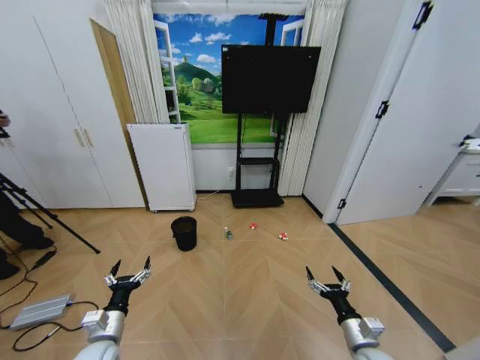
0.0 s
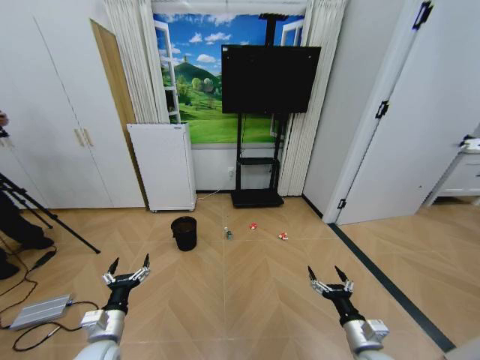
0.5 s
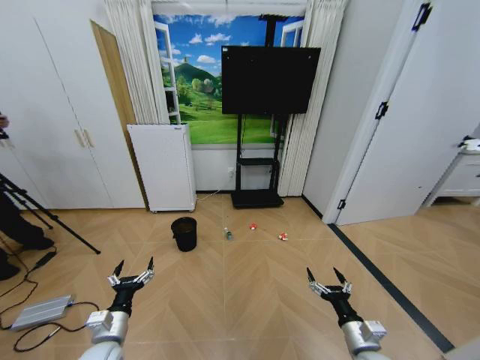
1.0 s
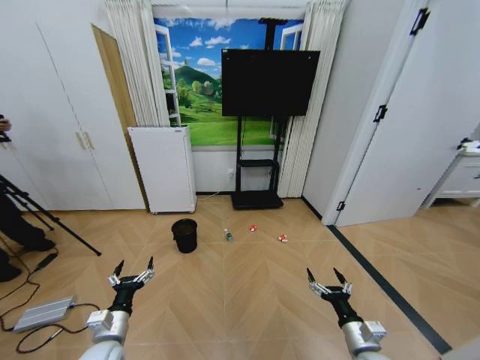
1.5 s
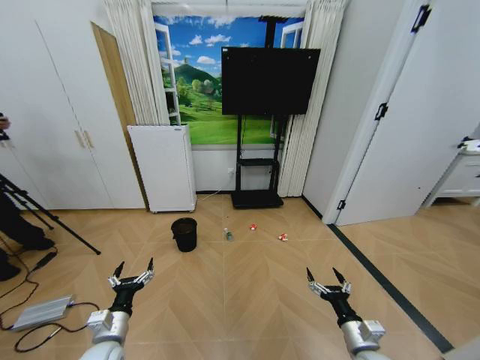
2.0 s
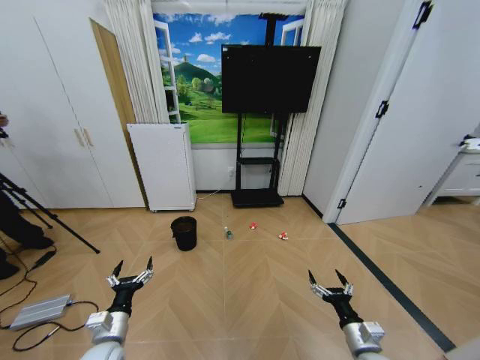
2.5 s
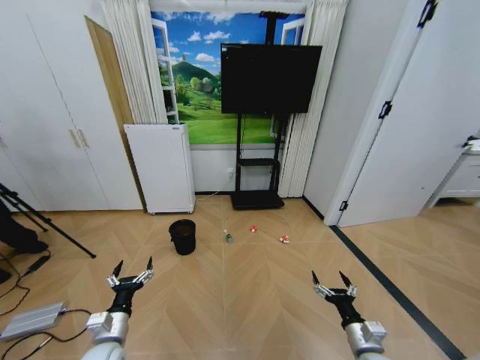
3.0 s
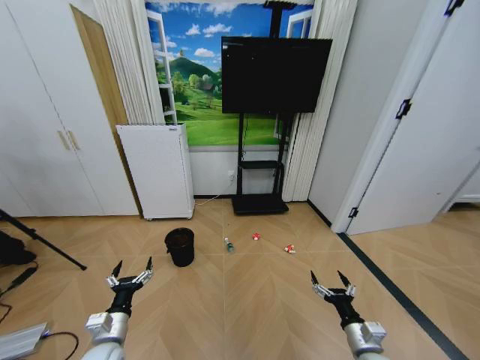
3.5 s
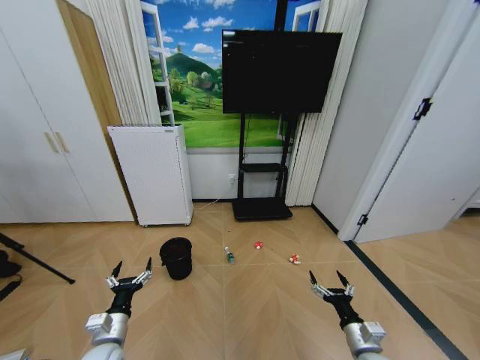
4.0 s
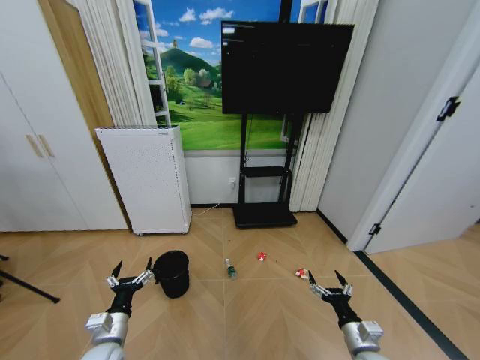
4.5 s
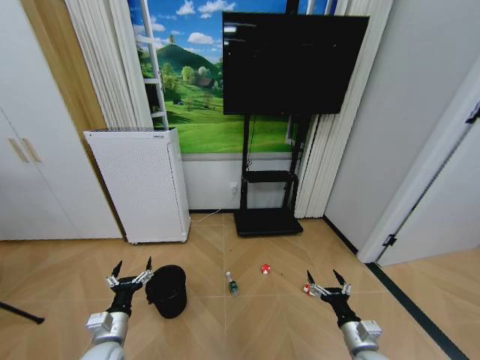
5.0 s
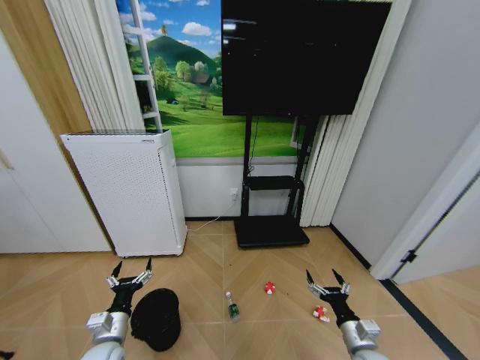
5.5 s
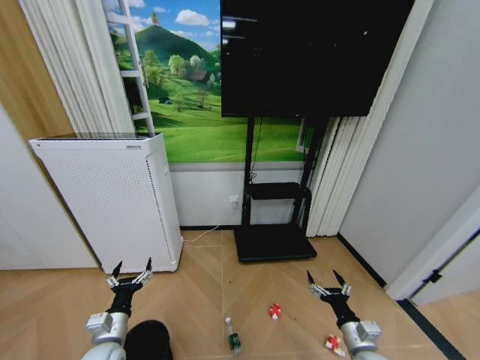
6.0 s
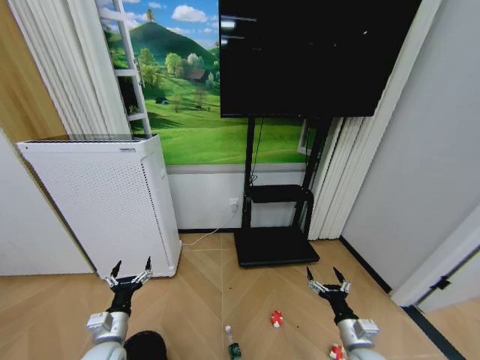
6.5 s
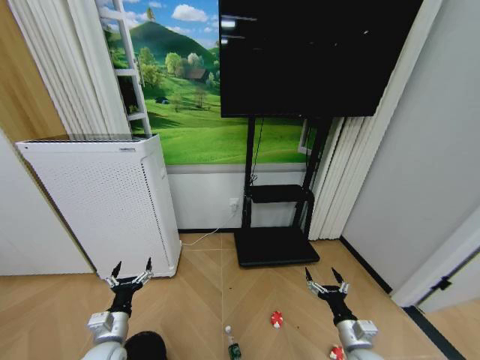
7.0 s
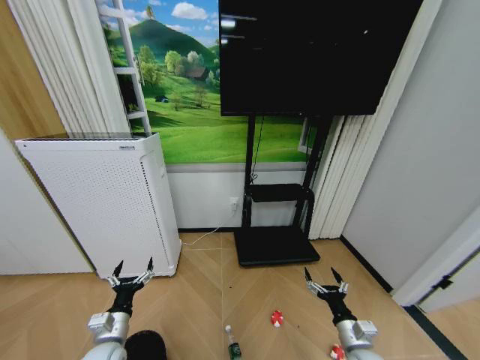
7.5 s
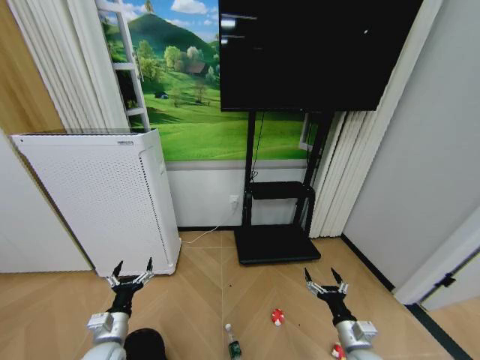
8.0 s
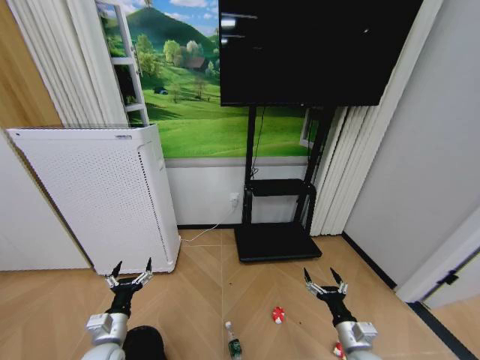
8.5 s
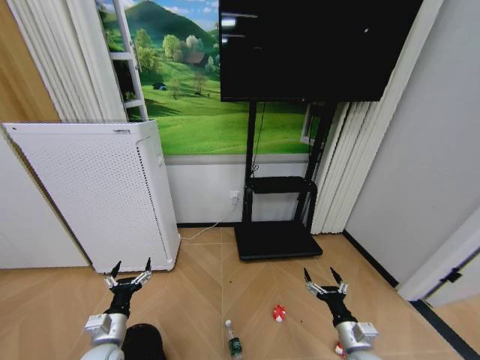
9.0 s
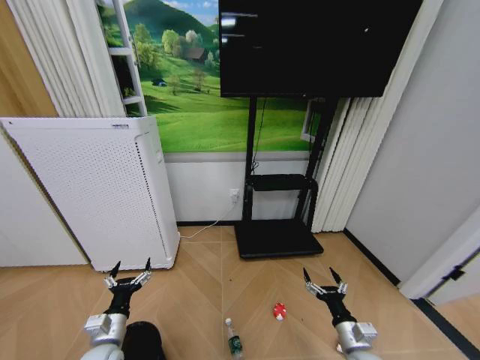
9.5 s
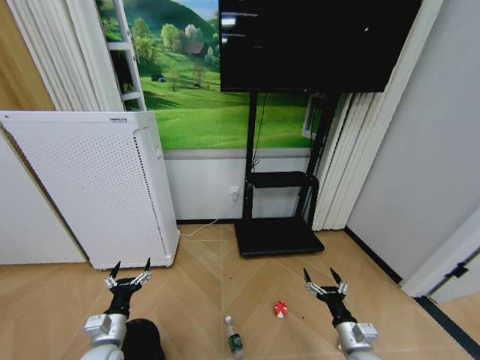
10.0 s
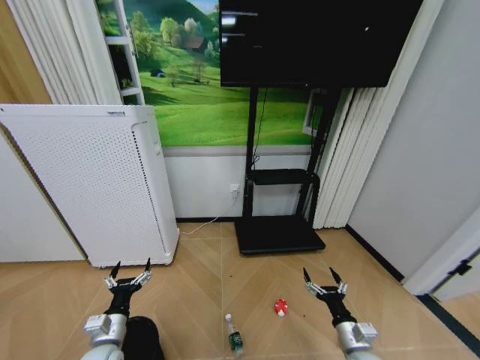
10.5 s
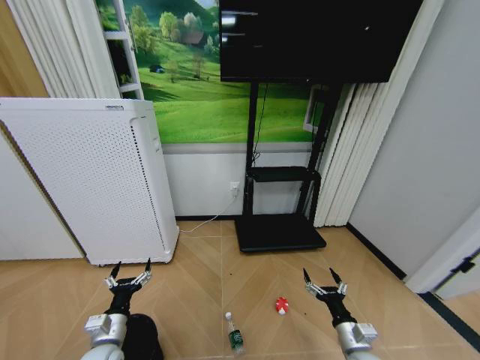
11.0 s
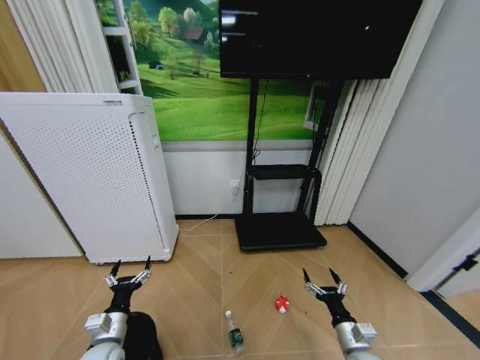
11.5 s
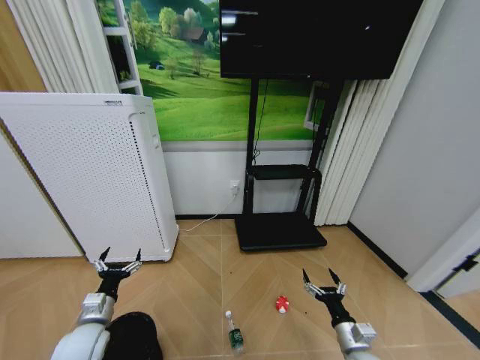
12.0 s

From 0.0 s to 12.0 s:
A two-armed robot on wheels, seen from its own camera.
Task of the whole recording: Pick up the trash bin and place the garbage on the floor into it.
From 6.0 s to 10.0 s: The two grippers keep their place.
From 10.0 s to 12.0 s: The left gripper changes place by about 5 cm.

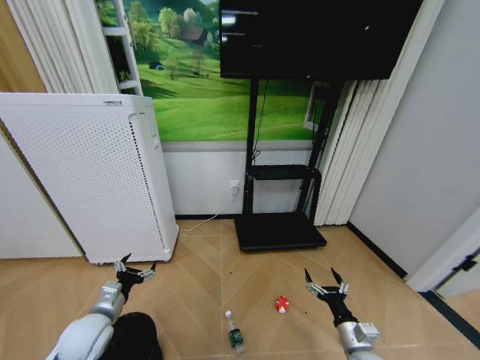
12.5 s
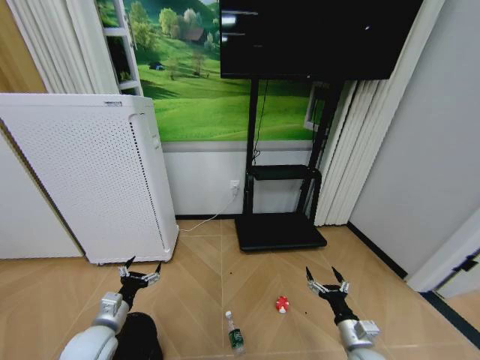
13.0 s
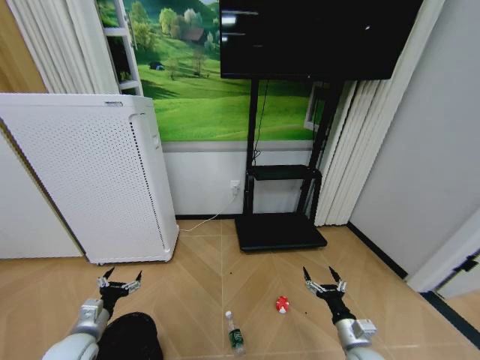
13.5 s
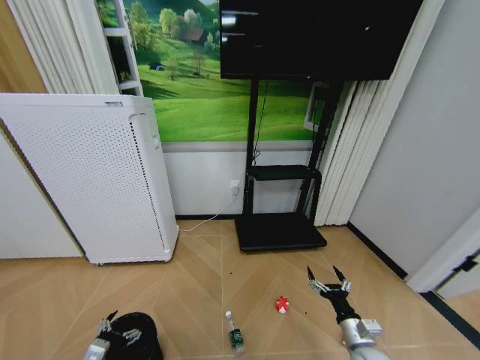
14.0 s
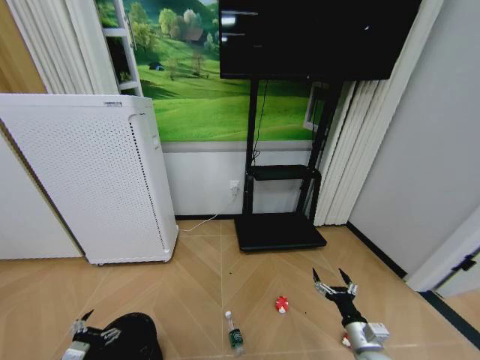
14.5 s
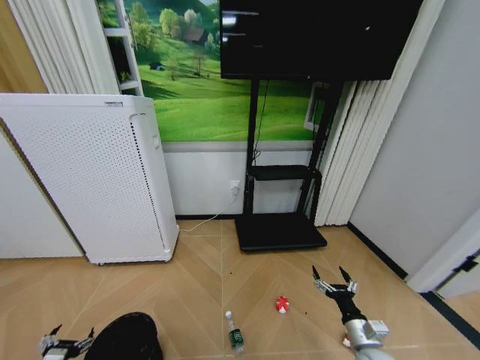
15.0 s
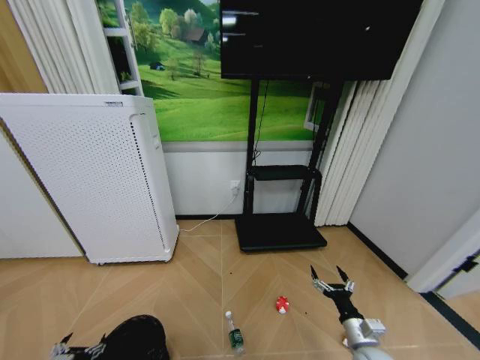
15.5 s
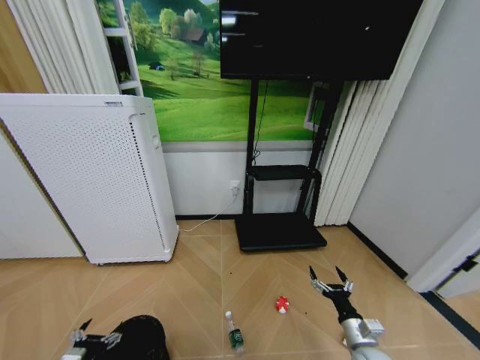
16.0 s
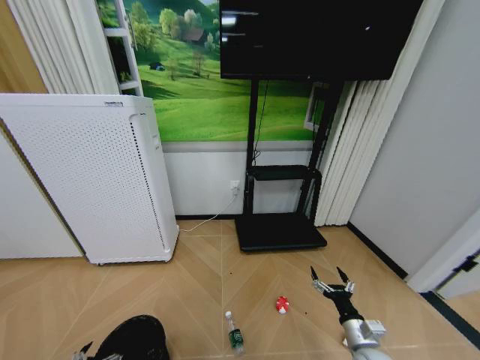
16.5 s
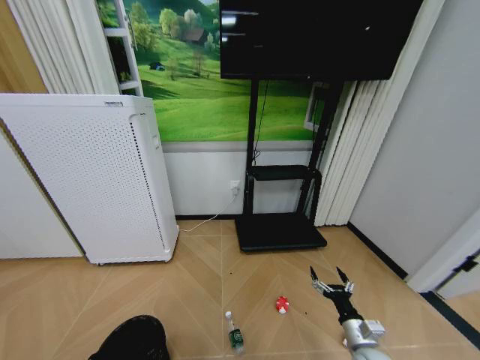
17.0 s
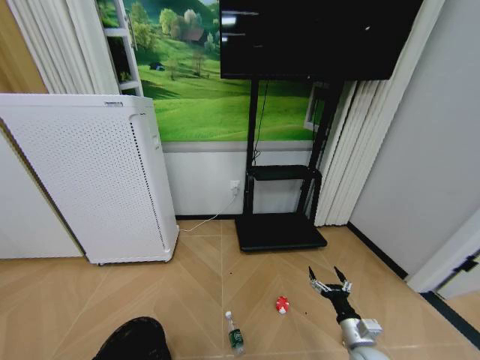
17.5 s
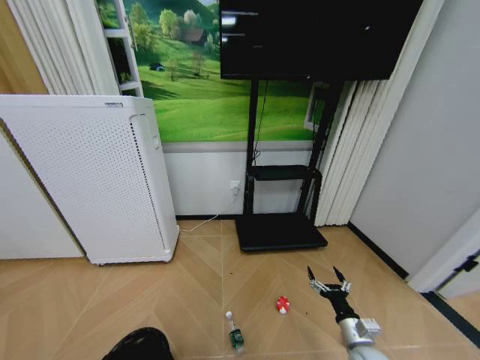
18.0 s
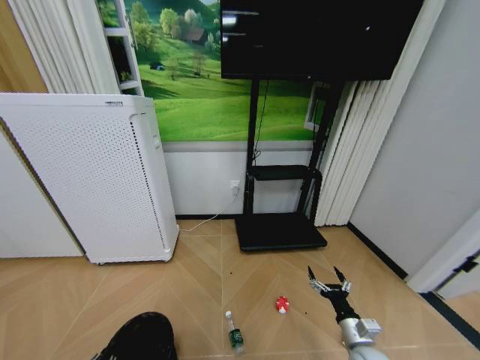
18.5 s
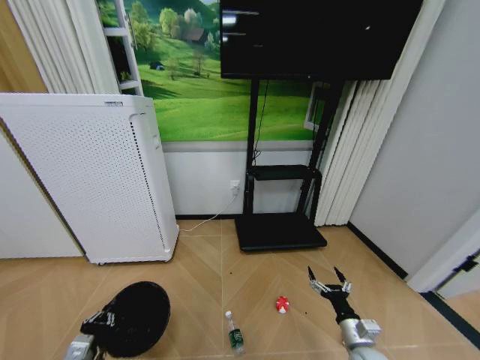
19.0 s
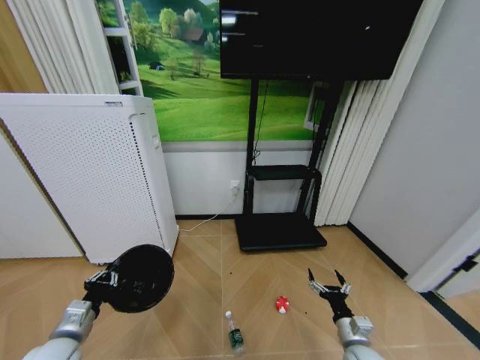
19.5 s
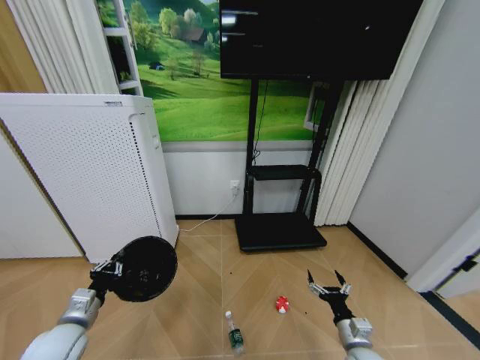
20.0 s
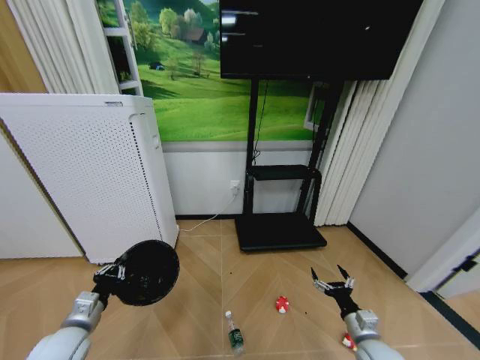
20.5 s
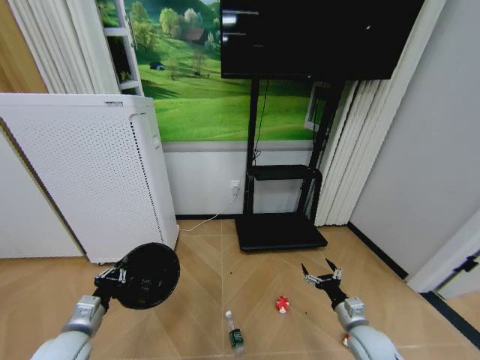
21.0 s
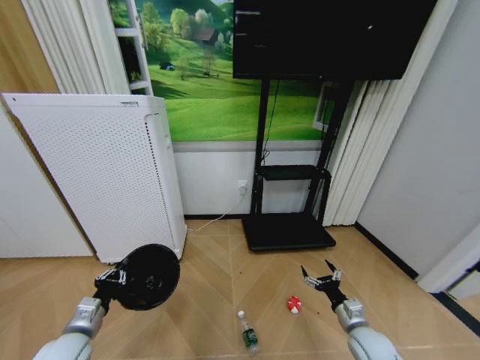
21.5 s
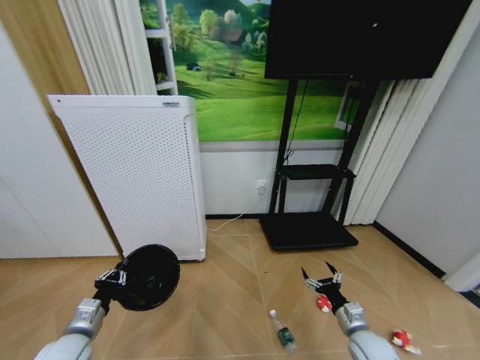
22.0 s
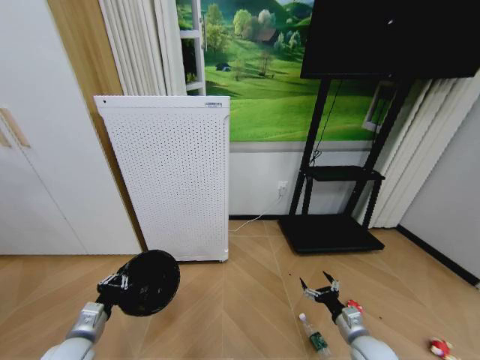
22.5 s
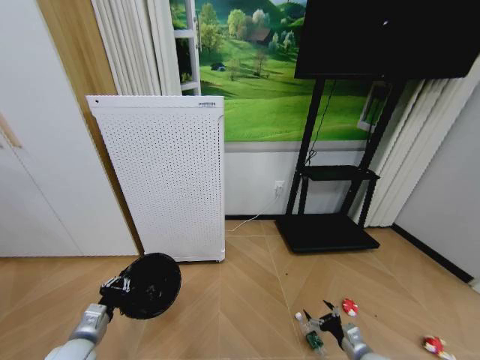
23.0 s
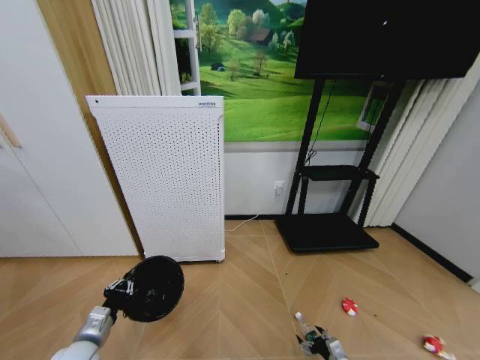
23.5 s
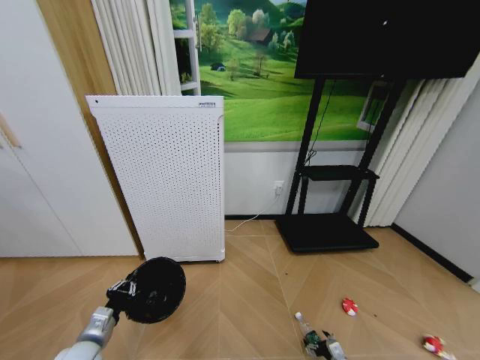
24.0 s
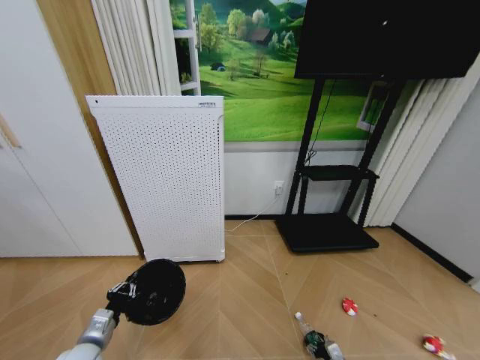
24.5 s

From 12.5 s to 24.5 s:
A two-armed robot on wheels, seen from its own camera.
Task of the whole recording: Pick up the trash bin and place the garbage on the floor into it.
From 12.5 s to 14.5 s: The left gripper goes about 10 cm backward.
From 14.5 s to 16.5 s: The left gripper shifts by roughly 5 cm.
From 16.5 s to 18.5 s: The left gripper closes its fingers.
From 18.5 s to 20.5 s: The left gripper is displaced upward and forward by roughly 15 cm.
From 22.5 s to 24.5 s: The right gripper shifts roughly 20 cm downward.

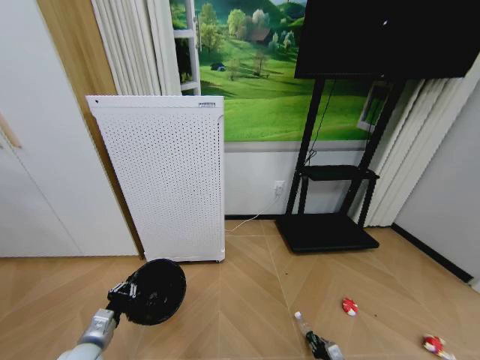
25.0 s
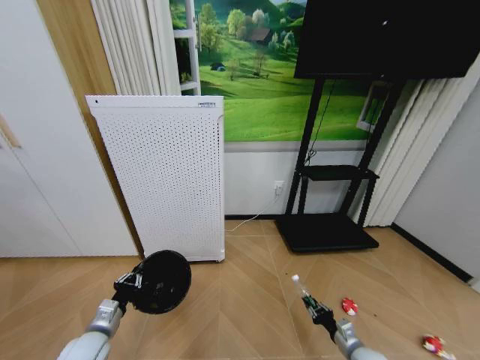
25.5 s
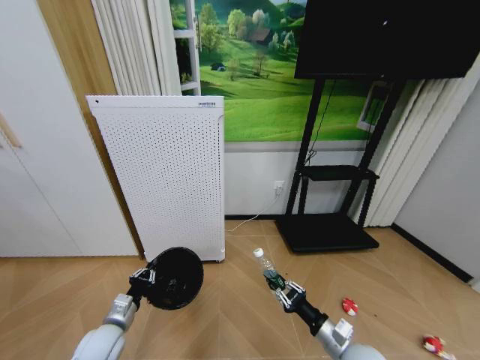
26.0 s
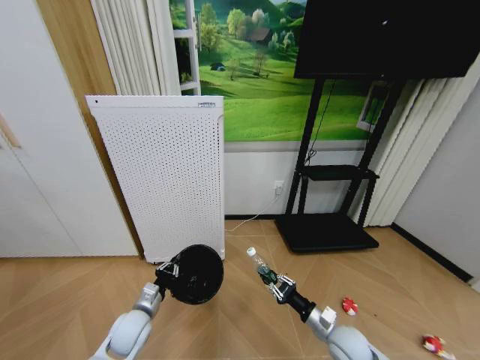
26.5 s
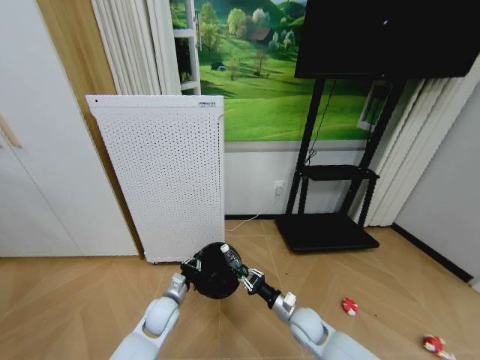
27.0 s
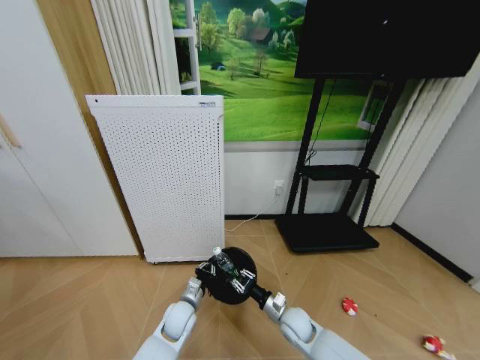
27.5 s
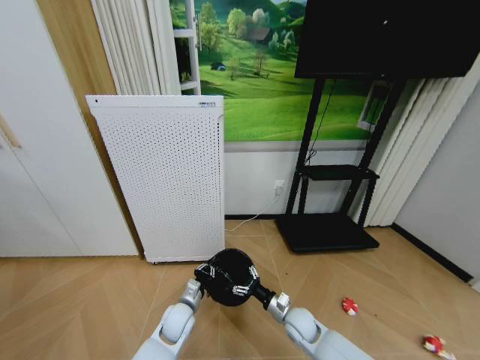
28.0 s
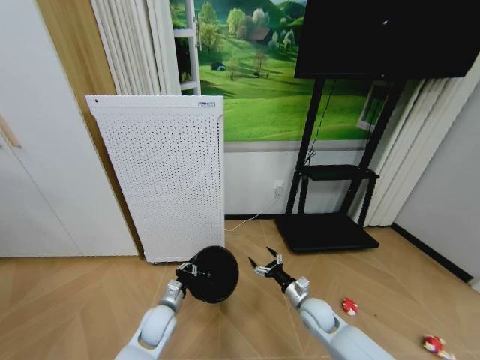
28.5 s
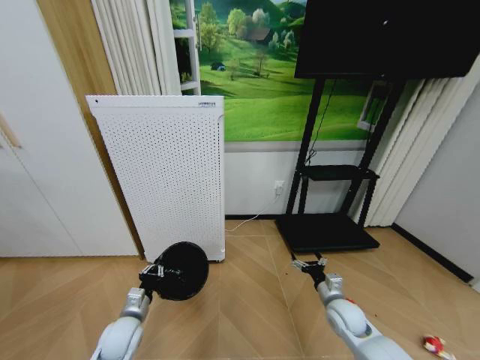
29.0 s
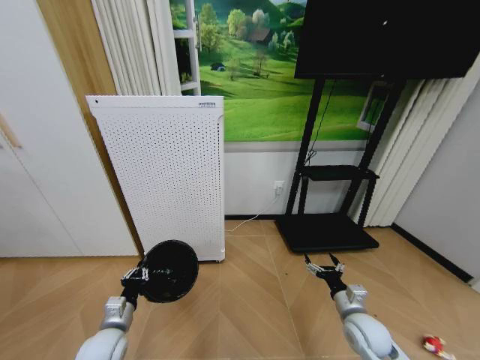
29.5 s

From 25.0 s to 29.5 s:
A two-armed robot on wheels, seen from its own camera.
Task of the whole recording: Pick up the trash bin and place the garbage on the floor into it.
From 25.0 s to 27.0 s: The left gripper travels to the right and forward by some 20 cm. The right gripper is displaced upward, to the left and forward by approximately 25 cm.
From 27.0 s to 29.5 s: The right gripper travels to the right and upward by approximately 15 cm, and opens its fingers, while the left gripper is displaced to the left and backward by roughly 15 cm.
